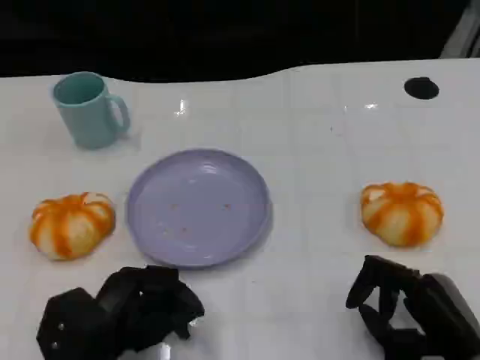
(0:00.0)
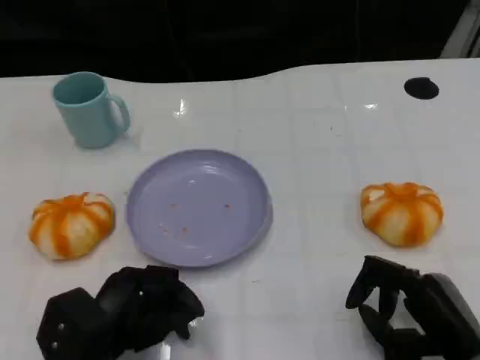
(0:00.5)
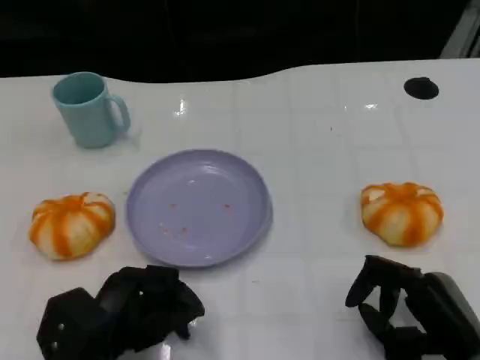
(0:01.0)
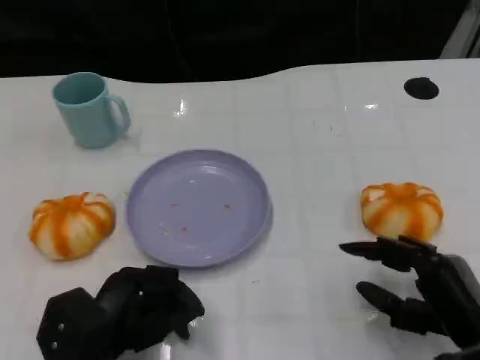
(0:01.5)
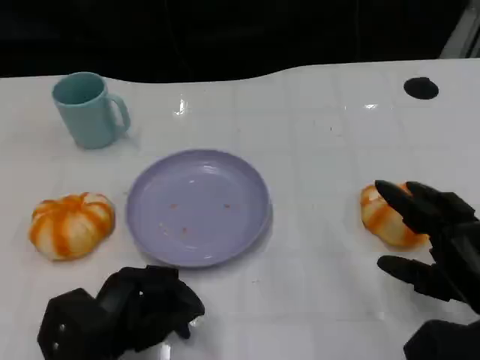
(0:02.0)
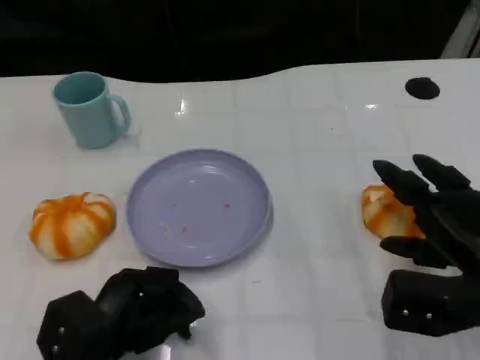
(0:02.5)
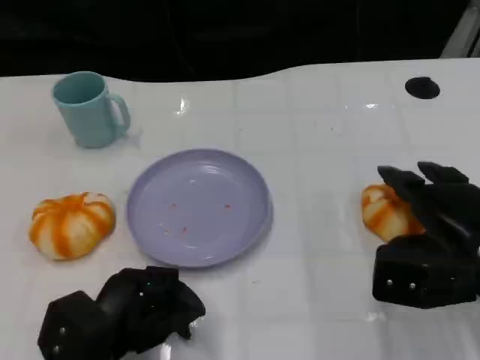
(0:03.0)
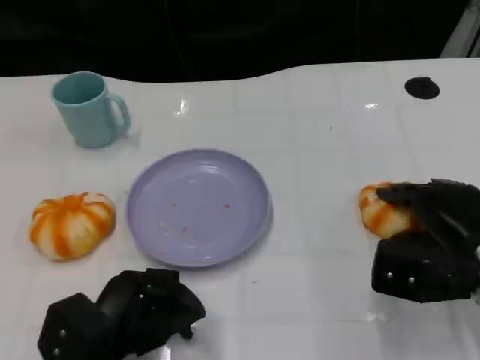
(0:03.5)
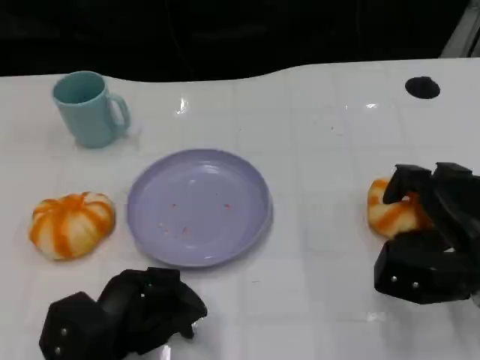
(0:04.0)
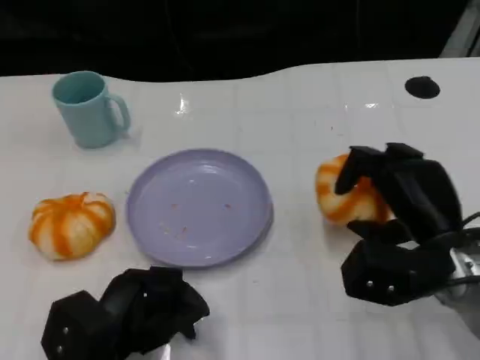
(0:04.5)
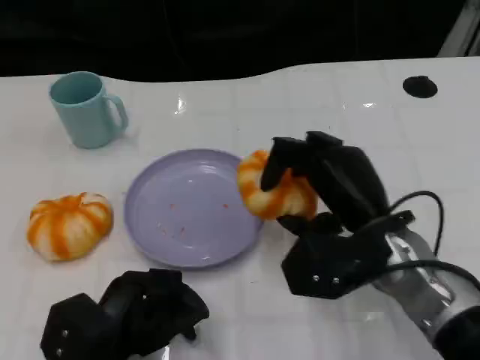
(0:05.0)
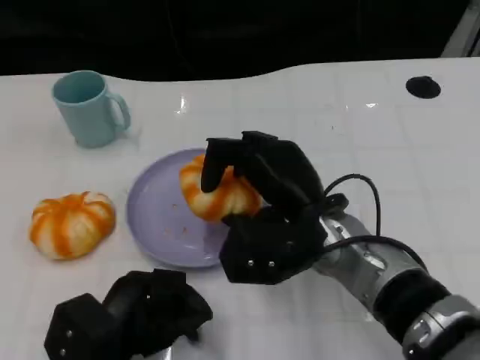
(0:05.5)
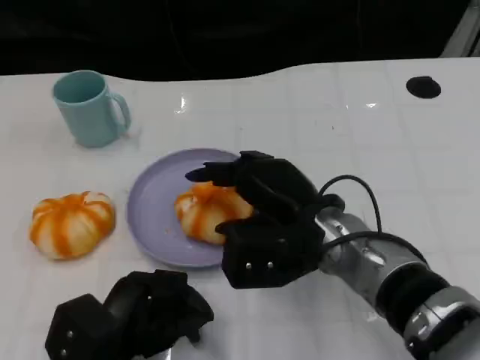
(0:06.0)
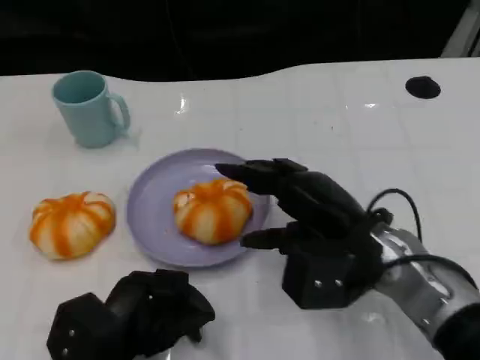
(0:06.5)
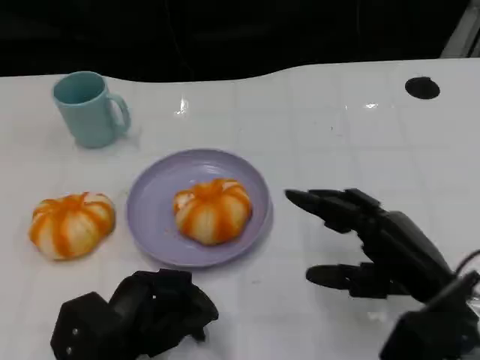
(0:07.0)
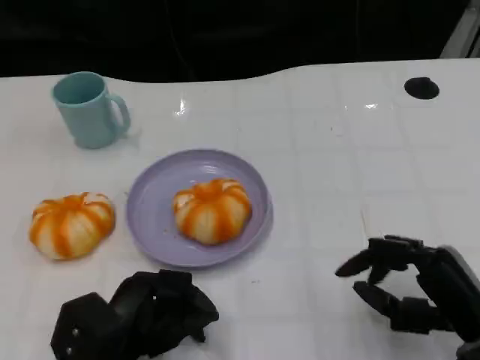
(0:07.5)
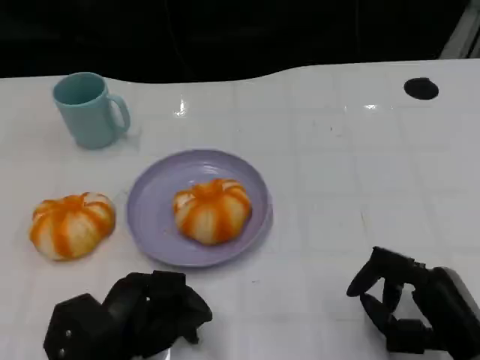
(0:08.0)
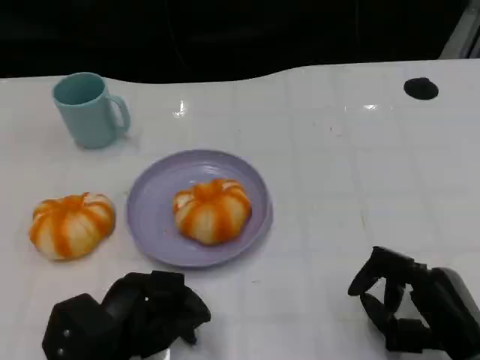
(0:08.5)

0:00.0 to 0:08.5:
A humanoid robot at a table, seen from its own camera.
Task of the whole recording: Grasp the bread from the table and place it into the plate.
0:00.0 to 0:02.0: The right hand shifts by about 5 cm.
0:02.0 to 0:04.0: The right hand is displaced forward by approximately 5 cm.
0:04.0 to 0:06.5: The right hand travels to the left by about 10 cm.
0:06.5 to 0:08.5: The right hand goes some 15 cm to the right, backward and downward.

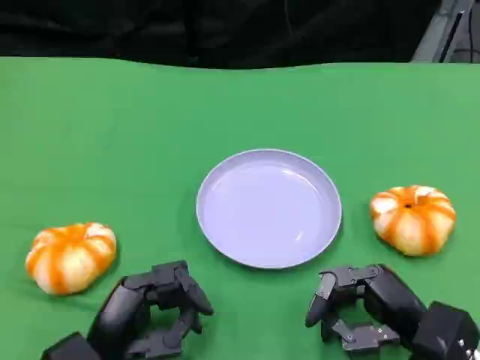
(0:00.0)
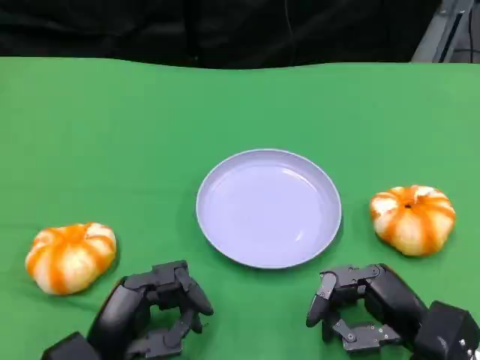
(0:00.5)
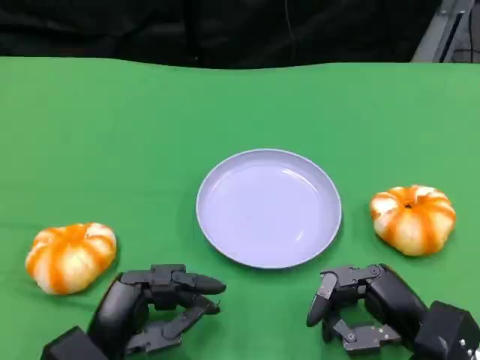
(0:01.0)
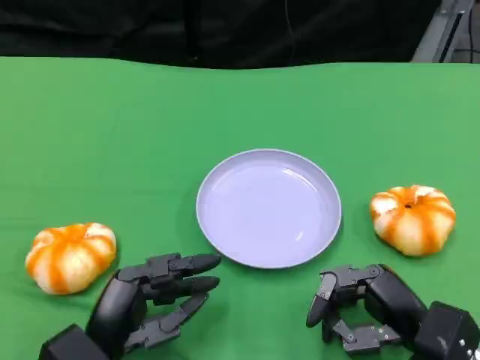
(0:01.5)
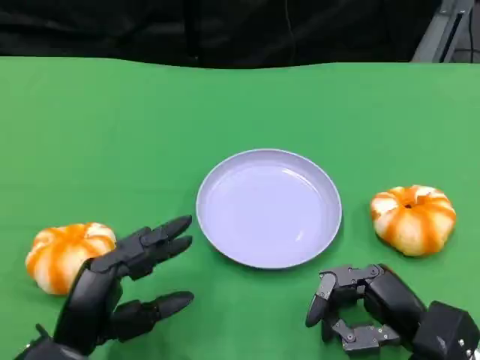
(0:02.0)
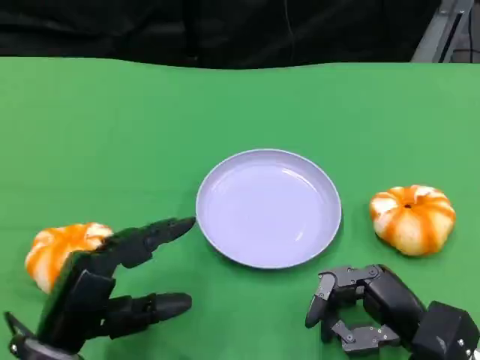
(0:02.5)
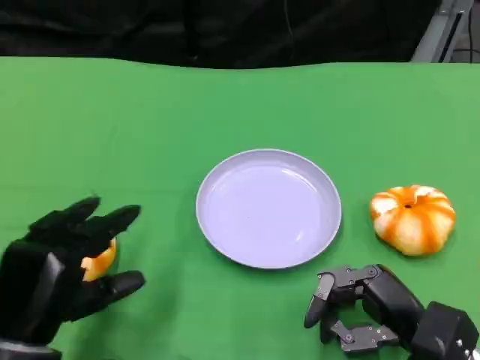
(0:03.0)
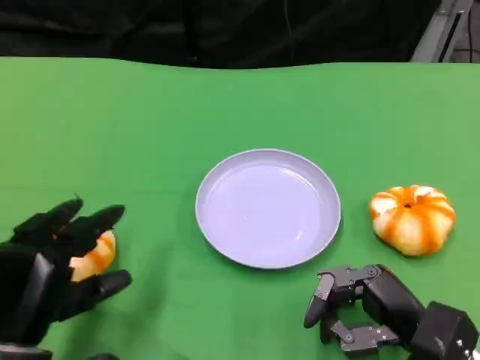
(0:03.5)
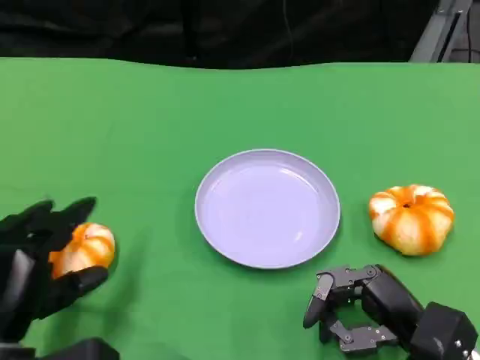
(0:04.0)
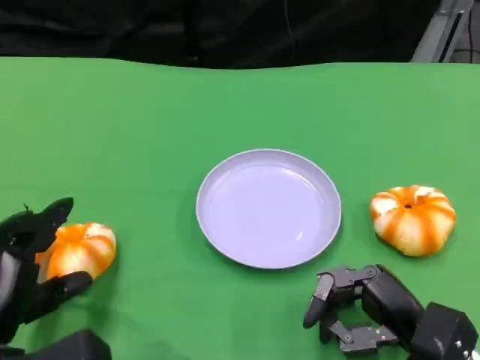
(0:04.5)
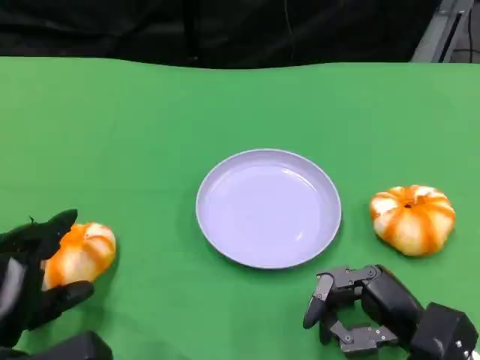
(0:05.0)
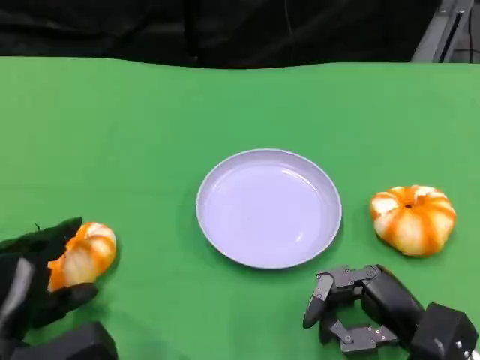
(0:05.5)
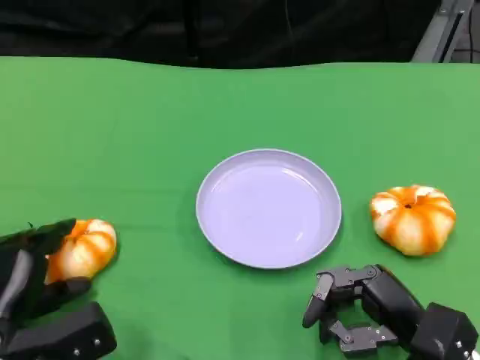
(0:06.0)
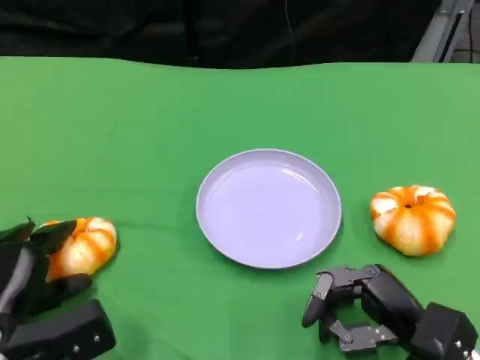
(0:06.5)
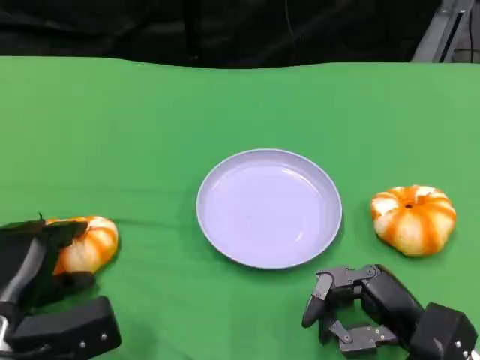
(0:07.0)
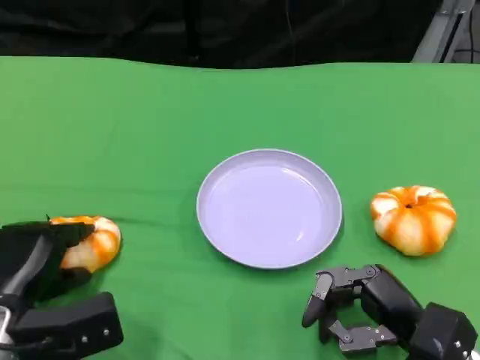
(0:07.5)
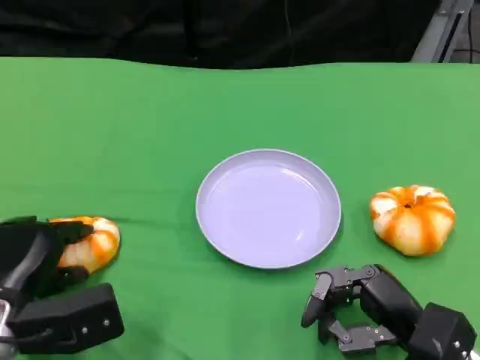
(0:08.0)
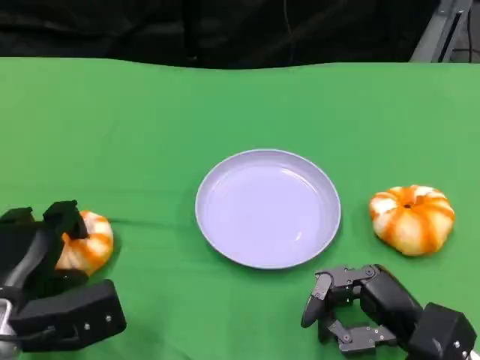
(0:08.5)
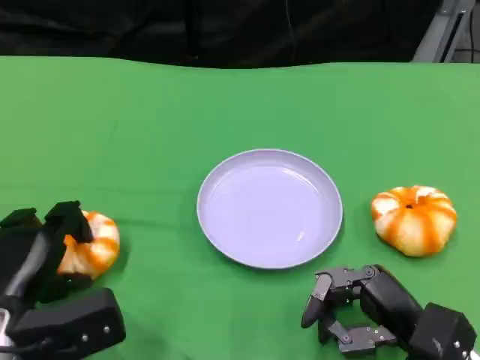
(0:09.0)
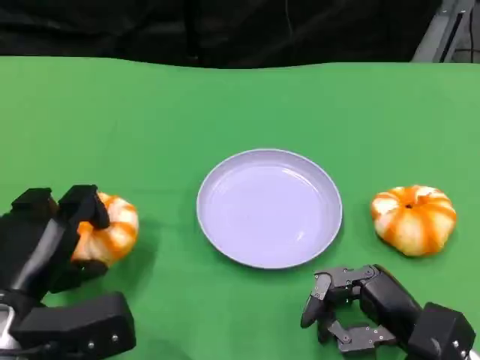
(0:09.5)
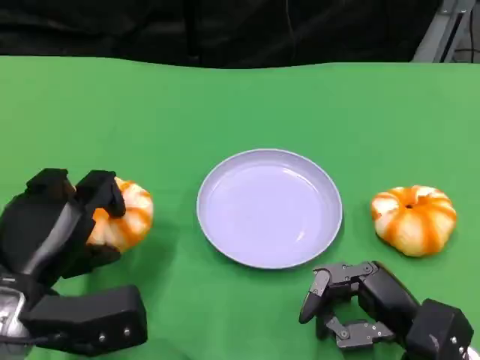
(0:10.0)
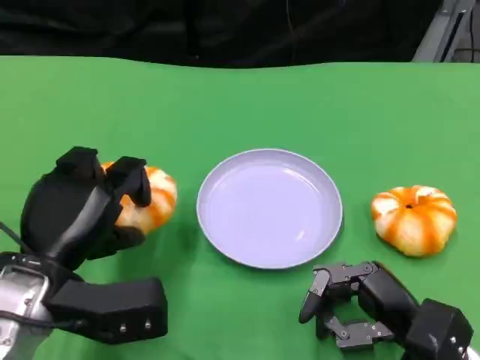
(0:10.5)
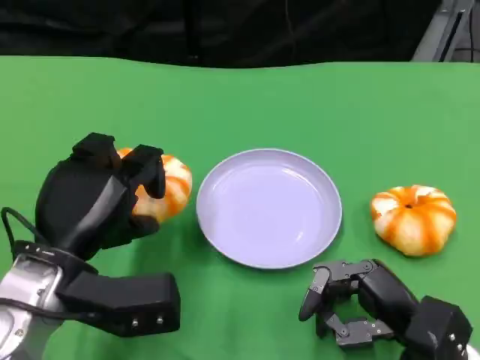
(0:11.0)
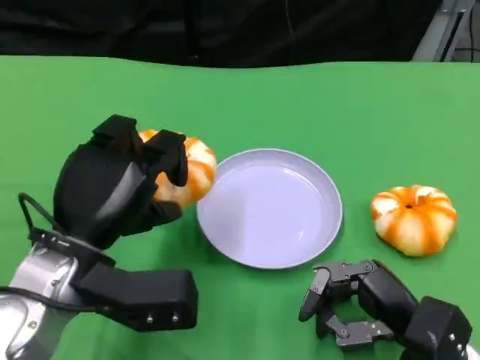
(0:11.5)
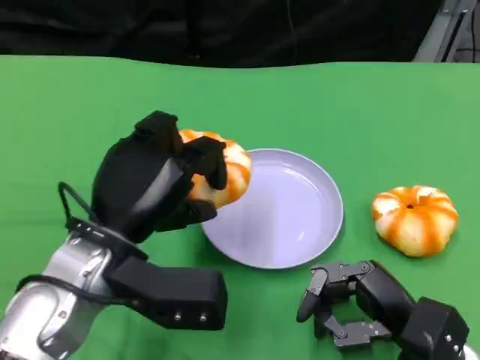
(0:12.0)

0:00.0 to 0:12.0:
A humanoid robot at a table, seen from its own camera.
Task of the whole recording: Grasp the bread from the table and place it into the plate.
0:00.0 to 0:02.0: The hands move only a little.
0:02.0 to 0:04.0: The left hand is displaced to the left by approximately 5 cm.
0:04.0 to 0:06.0: There are only small adjustments of the hands.
0:06.0 to 0:08.0: The hands move only a little.
0:08.0 to 0:10.0: The left hand changes place by approximately 5 cm.
0:10.0 to 0:12.0: The left hand moves to the right, some 10 cm.

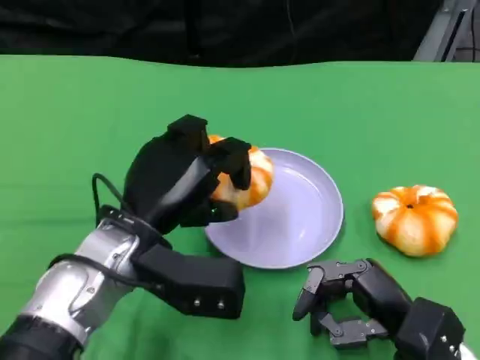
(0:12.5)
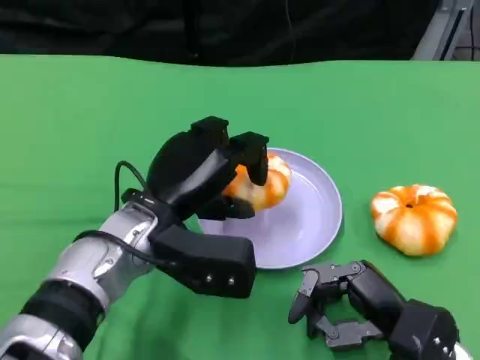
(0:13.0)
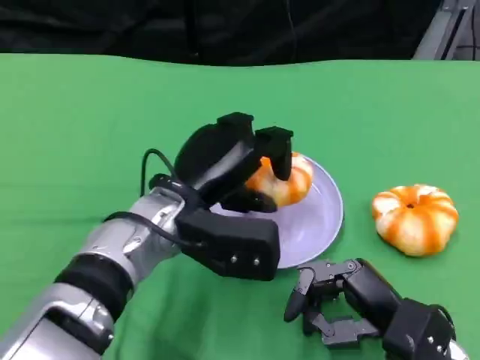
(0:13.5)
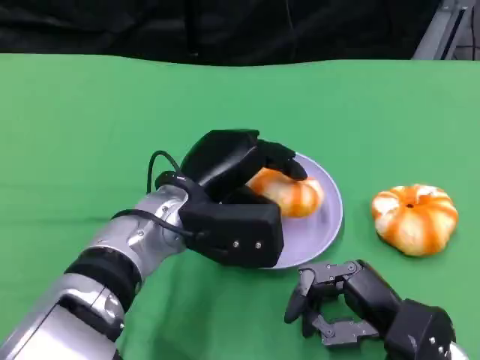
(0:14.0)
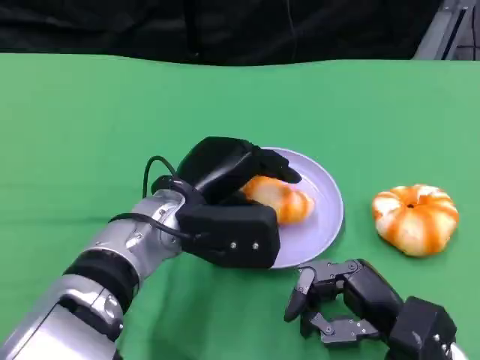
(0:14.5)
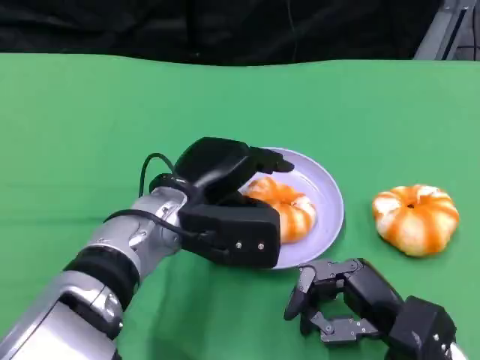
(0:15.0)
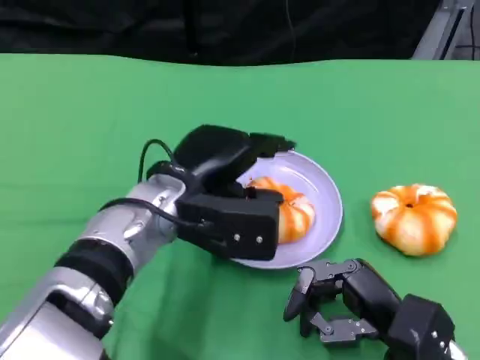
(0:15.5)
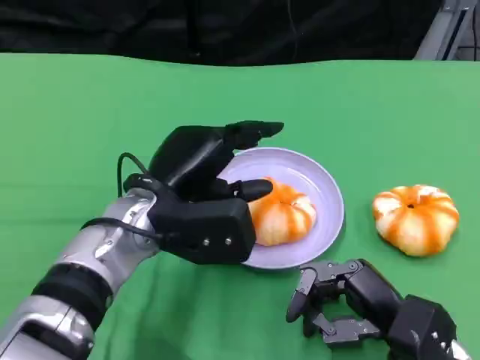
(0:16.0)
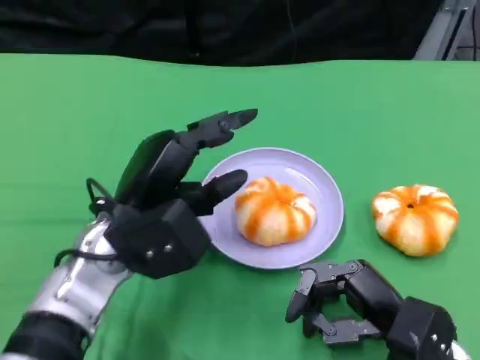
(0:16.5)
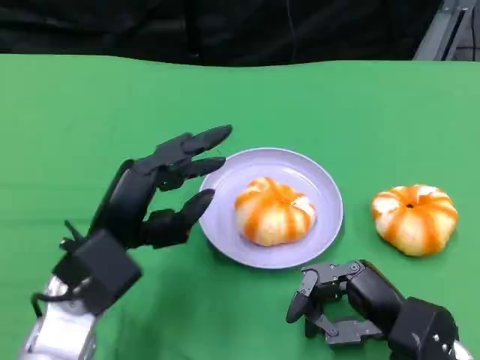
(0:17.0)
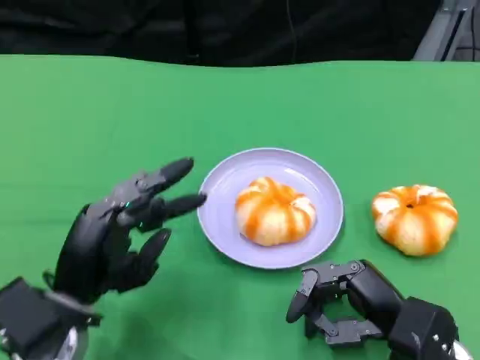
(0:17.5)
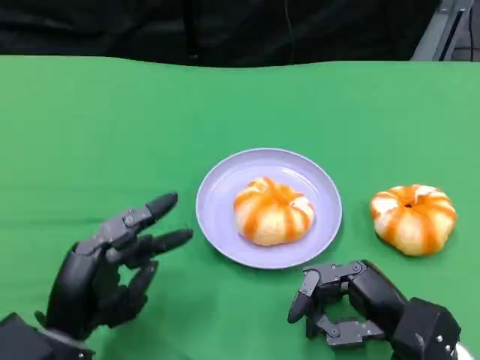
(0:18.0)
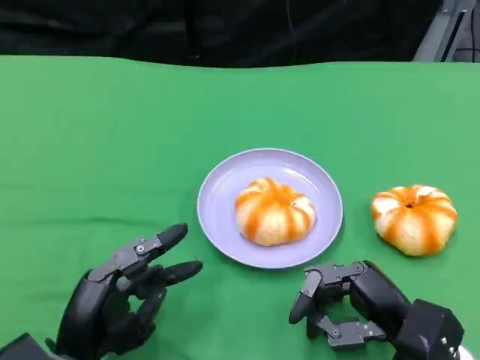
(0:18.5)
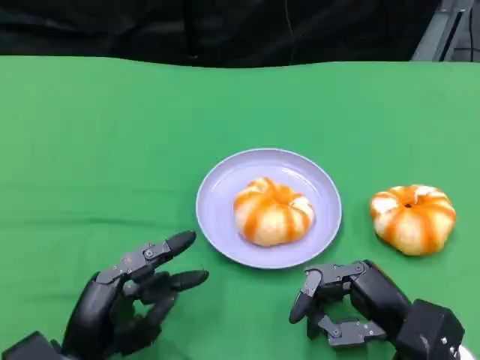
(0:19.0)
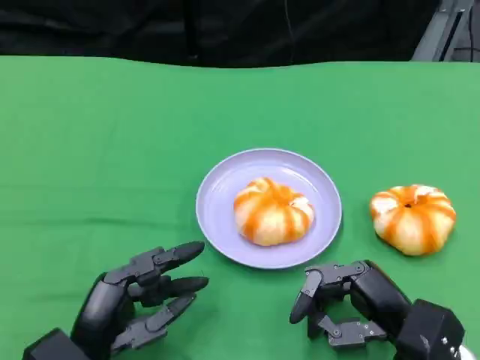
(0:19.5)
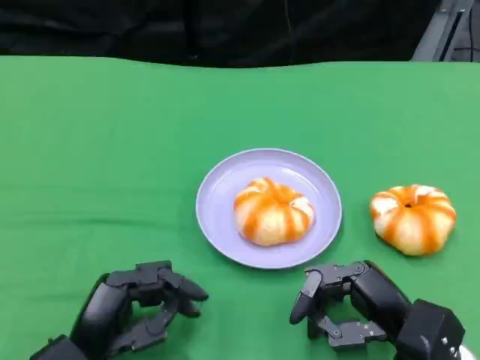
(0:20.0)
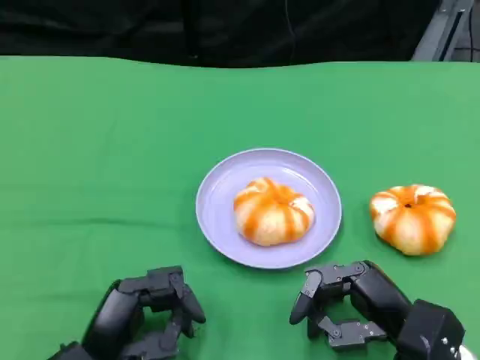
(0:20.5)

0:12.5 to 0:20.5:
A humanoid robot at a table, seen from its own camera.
Task of the whole recording: Grasp the bread from the table and place it into the plate.
0:12.5 to 0:14.5: The left hand moves approximately 5 cm.
0:14.5 to 0:16.5: The left hand travels to the left by approximately 5 cm.
0:16.5 to 0:18.5: The left hand heads downward, backward and to the left, covering approximately 15 cm.
0:18.5 to 0:20.5: The hands stay close to where they were, moving slightly.
